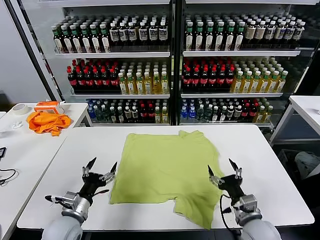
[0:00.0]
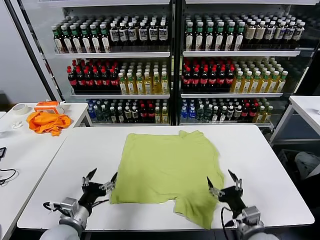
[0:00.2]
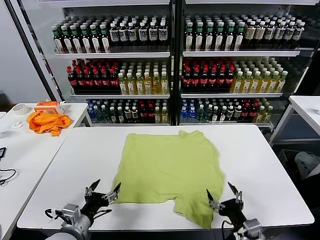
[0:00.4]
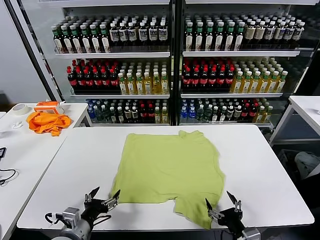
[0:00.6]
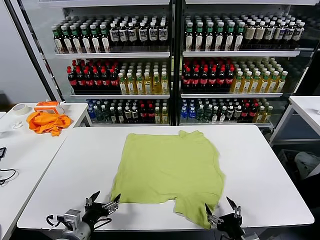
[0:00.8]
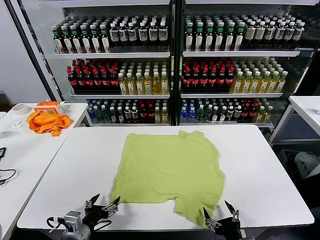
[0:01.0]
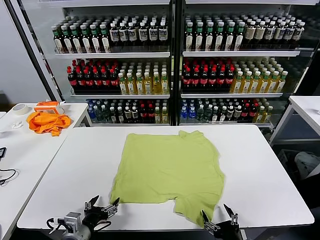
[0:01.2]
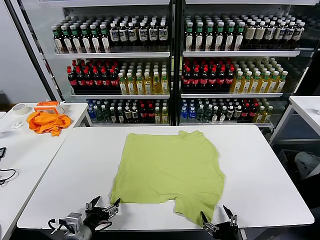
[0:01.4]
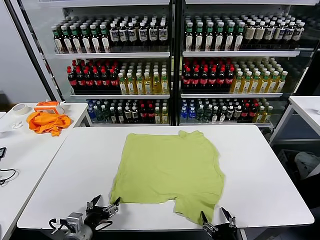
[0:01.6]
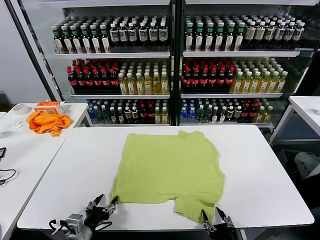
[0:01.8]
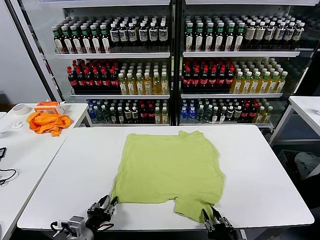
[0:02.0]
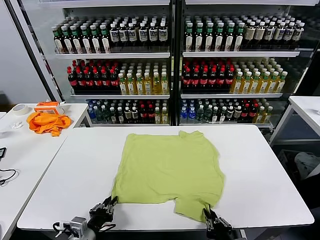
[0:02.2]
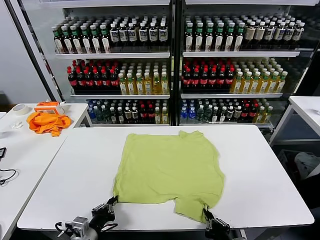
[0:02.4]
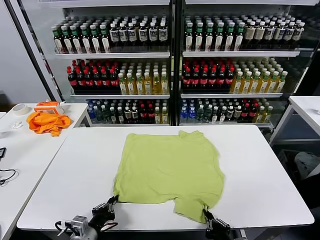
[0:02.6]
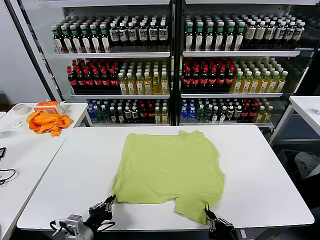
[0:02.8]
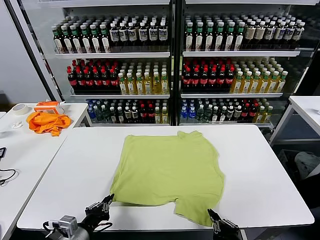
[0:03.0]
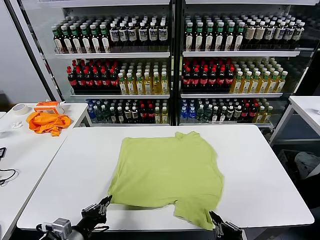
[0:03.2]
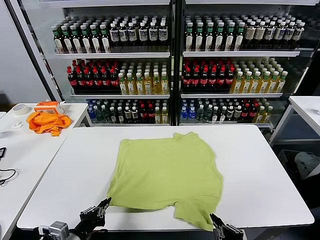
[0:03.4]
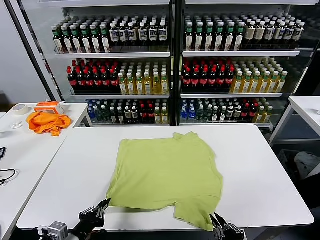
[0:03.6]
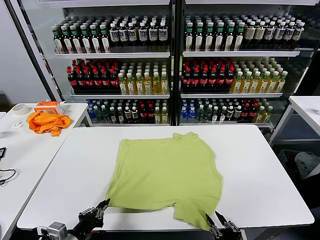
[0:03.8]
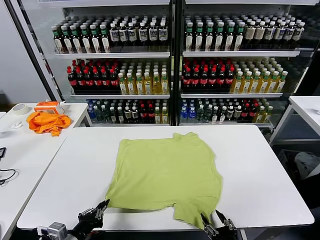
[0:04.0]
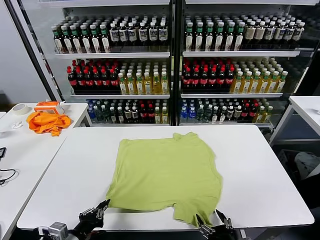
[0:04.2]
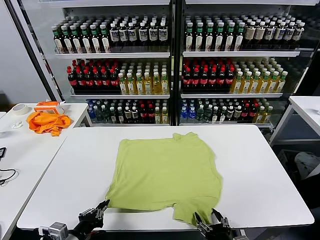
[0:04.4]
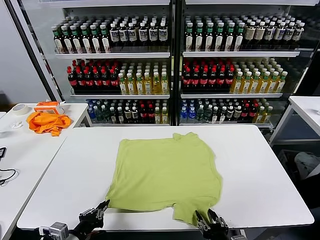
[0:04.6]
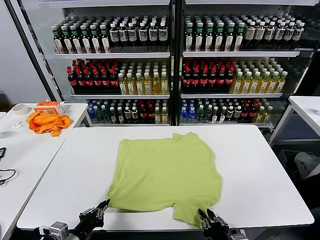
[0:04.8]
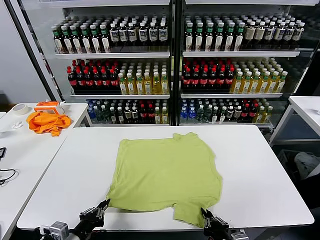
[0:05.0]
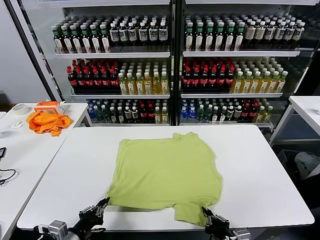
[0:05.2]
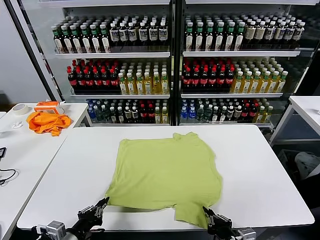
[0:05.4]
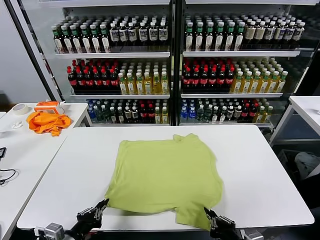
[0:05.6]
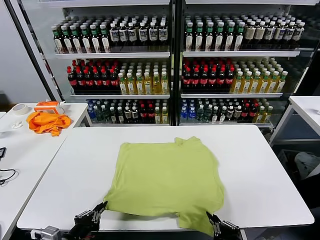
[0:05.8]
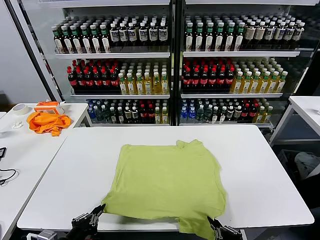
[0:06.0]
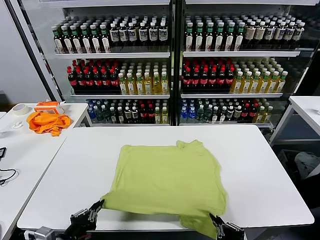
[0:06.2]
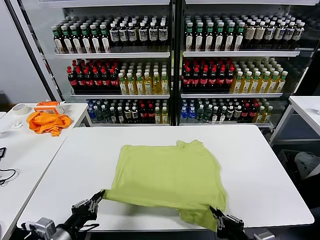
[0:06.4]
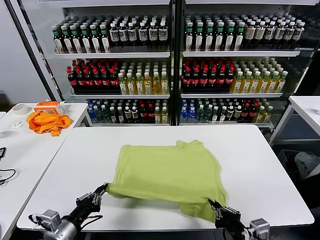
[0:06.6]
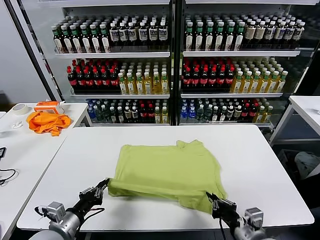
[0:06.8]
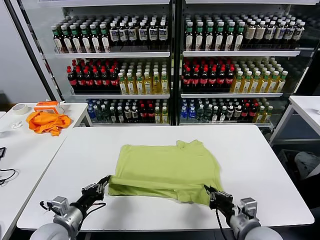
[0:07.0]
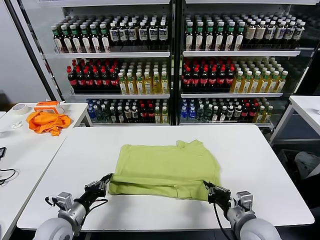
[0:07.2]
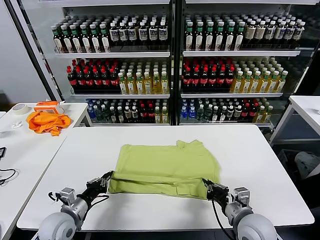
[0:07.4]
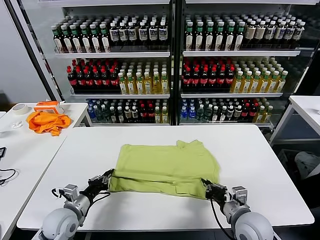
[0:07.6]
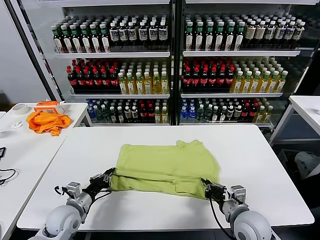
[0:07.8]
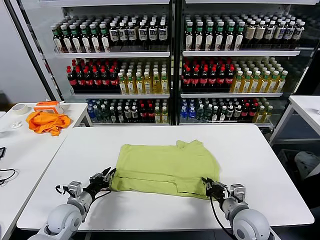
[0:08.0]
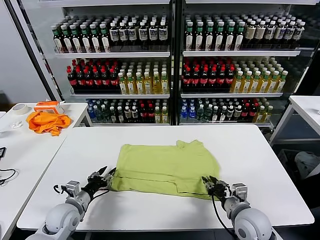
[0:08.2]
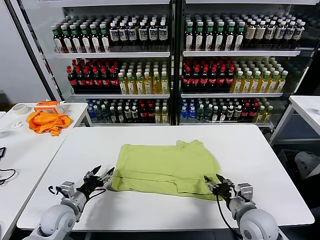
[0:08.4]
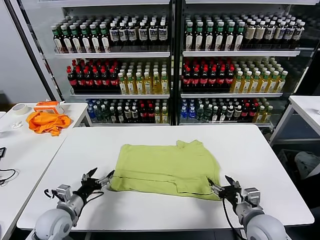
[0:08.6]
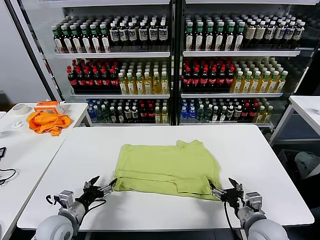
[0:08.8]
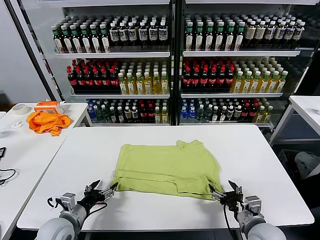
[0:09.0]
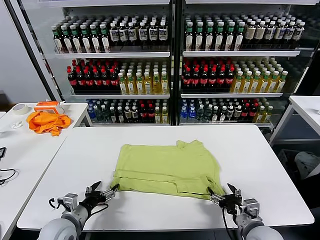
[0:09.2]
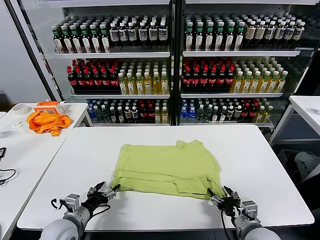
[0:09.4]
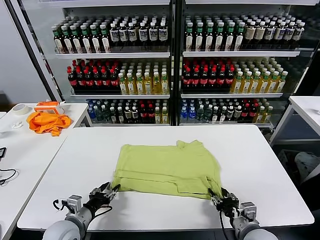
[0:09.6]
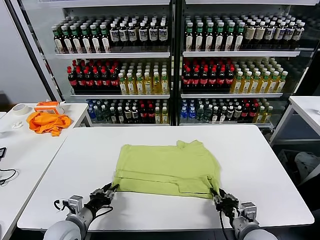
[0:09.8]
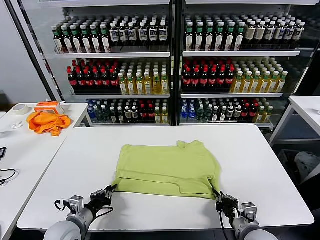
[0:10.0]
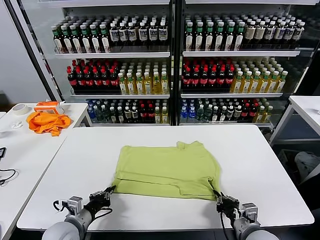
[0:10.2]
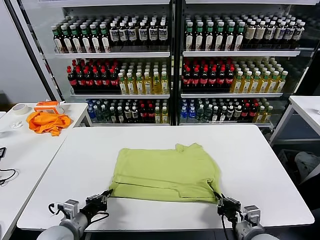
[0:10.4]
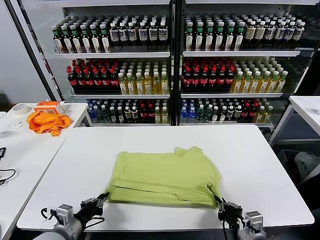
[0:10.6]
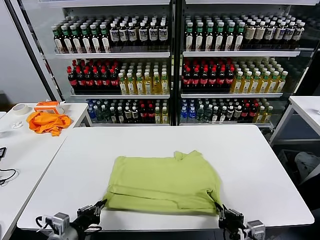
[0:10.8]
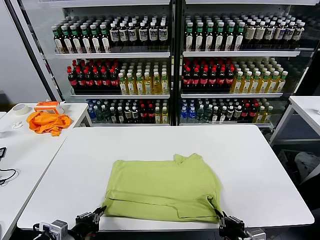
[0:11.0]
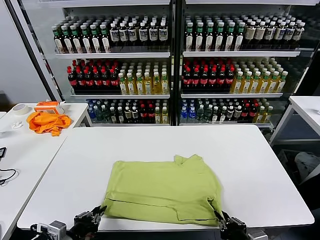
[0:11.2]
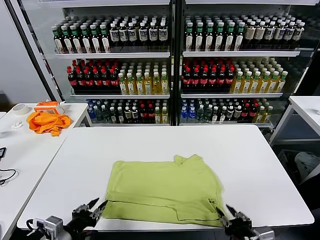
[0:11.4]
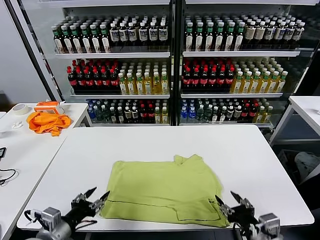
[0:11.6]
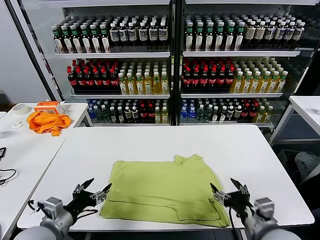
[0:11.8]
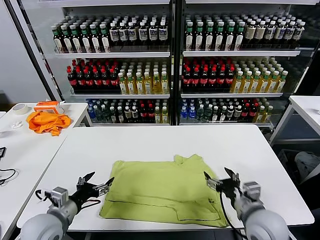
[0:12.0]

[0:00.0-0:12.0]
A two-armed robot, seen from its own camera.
Task of the whole recording: fold and organize the clothes.
Step, 0:00.0 to 0:02.2: use both grippers simultaneously to clamp the lower edge of the clothing fabric.
Step, 0:02.4 to 0:08.4: use both grippers to drag the lower edge of the fabric forward and fold it over the upper edge.
Step, 0:08.6 to 0:11.4: Drag the clothes downward with both gripper.
0:01.6 to 0:03.0: The left gripper closes. Meanwhile the right gripper is displaced upward by about 5 cm, and closes up.
0:03.0 to 0:04.4: The right gripper moves roughly 5 cm, and opens its fingers.
0:04.4 to 0:06.0: The right gripper travels upward by some 10 cm, and closes up.
0:06.0 to 0:07.6: The left gripper travels forward and downward by approximately 20 cm. Meanwhile the right gripper moves forward, approximately 15 cm.
0:07.6 to 0:09.0: The left gripper opens its fingers; the right gripper opens its fingers.
0:09.0 to 0:10.4: The right gripper closes its fingers. The left gripper closes.
0:10.4 to 0:12.0: The right gripper goes approximately 10 cm forward and upward, and opens up. The left gripper goes backward and returns, some 5 cm each way, and opens its fingers.

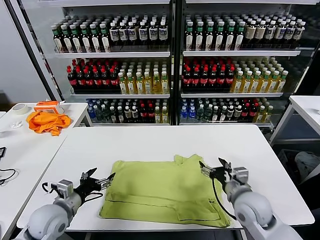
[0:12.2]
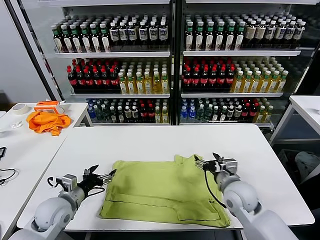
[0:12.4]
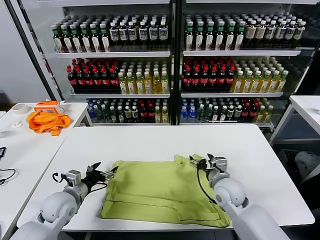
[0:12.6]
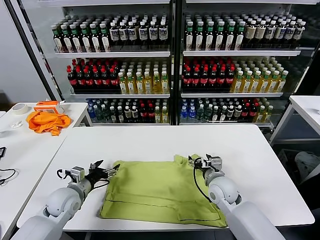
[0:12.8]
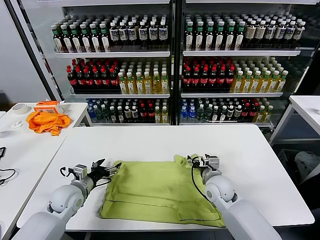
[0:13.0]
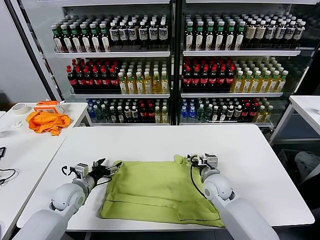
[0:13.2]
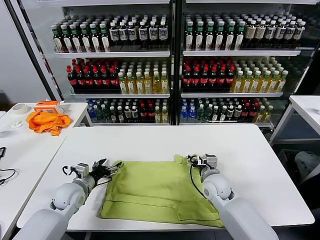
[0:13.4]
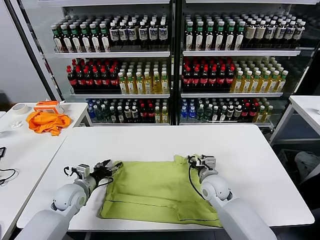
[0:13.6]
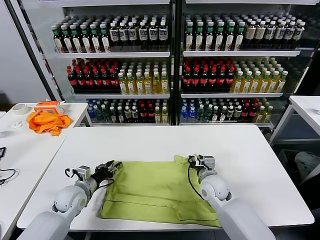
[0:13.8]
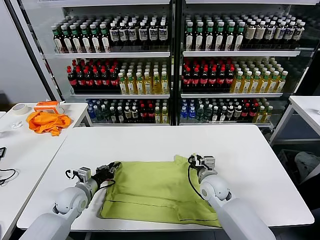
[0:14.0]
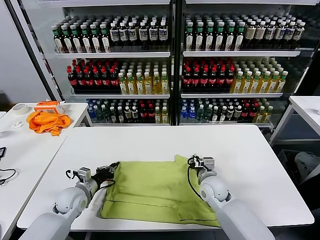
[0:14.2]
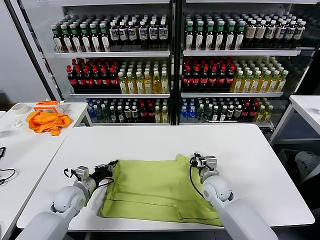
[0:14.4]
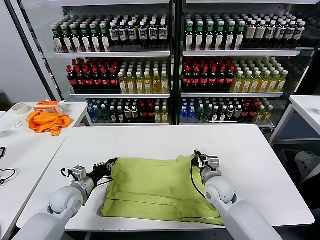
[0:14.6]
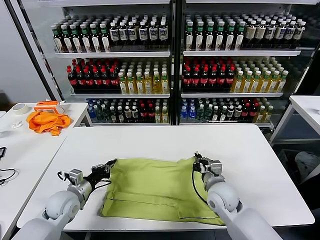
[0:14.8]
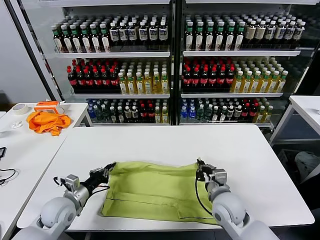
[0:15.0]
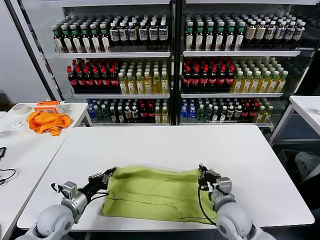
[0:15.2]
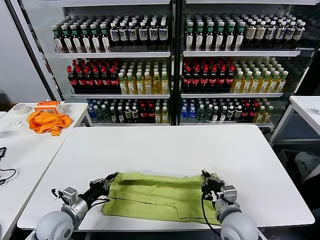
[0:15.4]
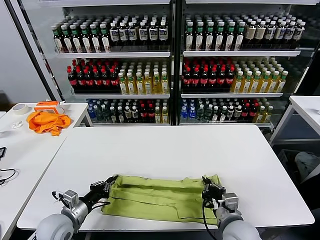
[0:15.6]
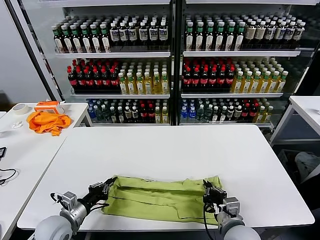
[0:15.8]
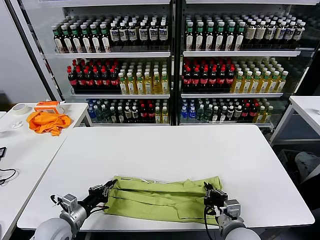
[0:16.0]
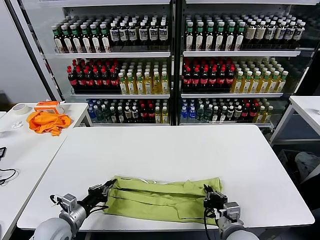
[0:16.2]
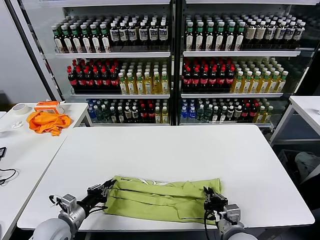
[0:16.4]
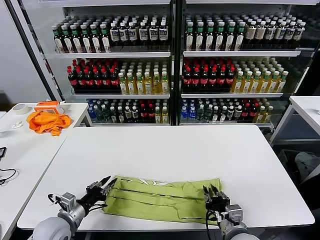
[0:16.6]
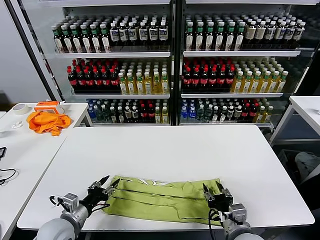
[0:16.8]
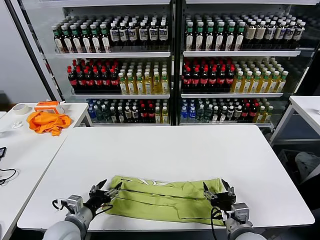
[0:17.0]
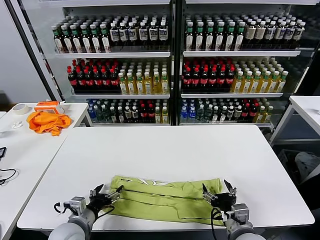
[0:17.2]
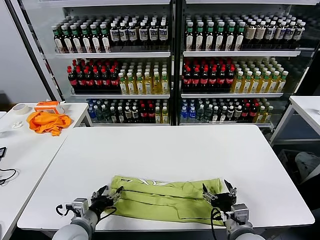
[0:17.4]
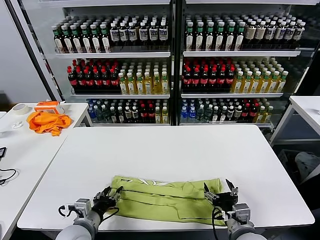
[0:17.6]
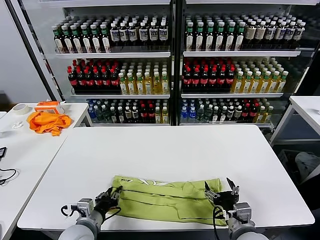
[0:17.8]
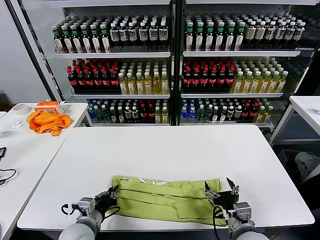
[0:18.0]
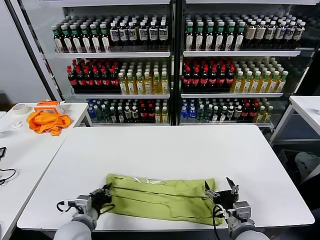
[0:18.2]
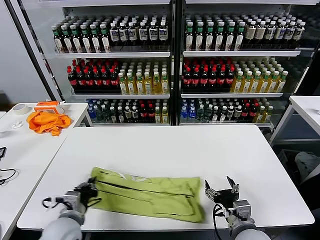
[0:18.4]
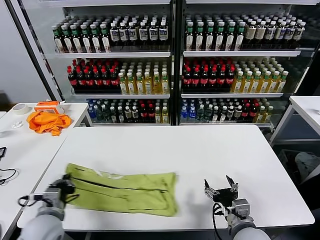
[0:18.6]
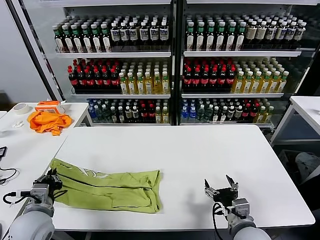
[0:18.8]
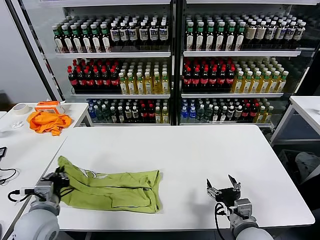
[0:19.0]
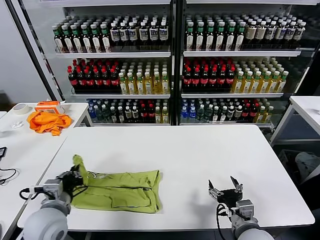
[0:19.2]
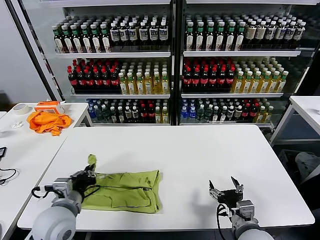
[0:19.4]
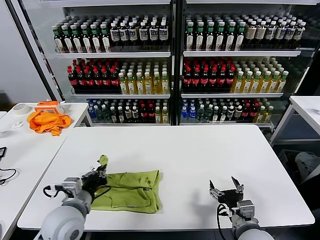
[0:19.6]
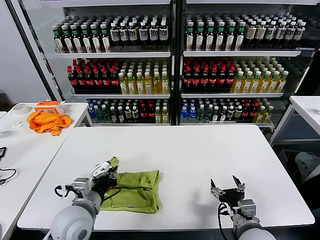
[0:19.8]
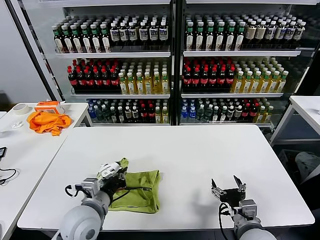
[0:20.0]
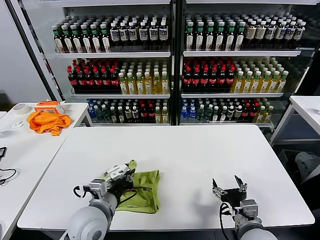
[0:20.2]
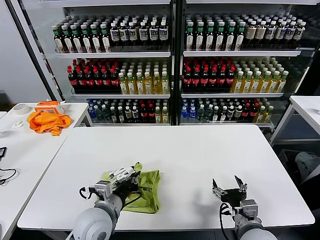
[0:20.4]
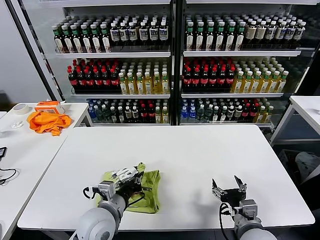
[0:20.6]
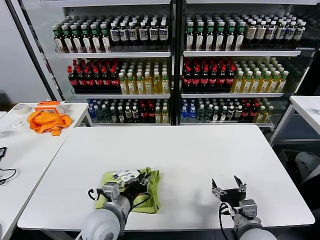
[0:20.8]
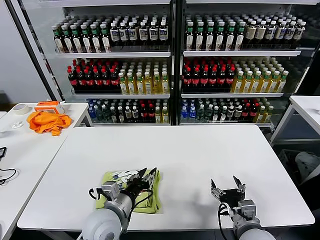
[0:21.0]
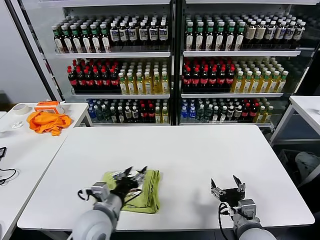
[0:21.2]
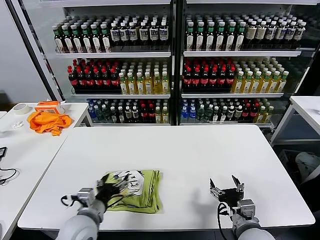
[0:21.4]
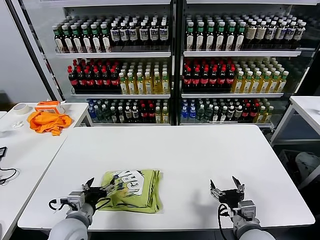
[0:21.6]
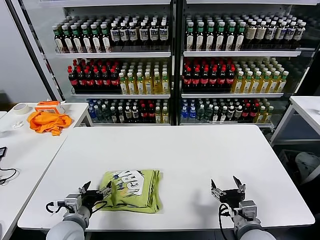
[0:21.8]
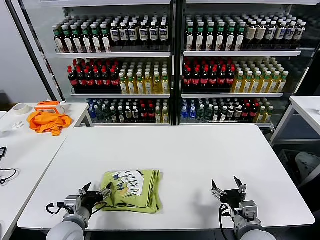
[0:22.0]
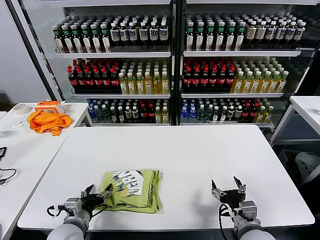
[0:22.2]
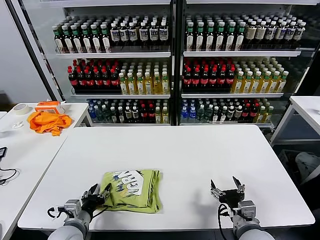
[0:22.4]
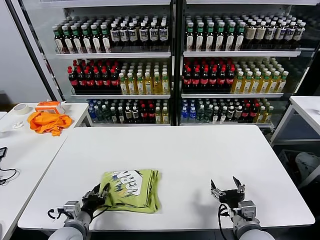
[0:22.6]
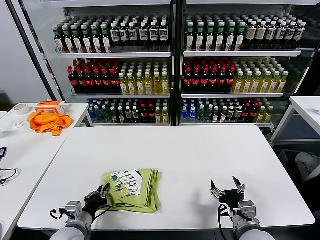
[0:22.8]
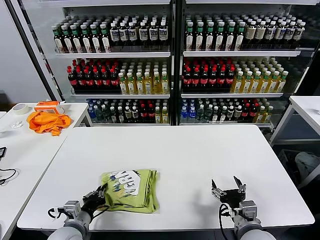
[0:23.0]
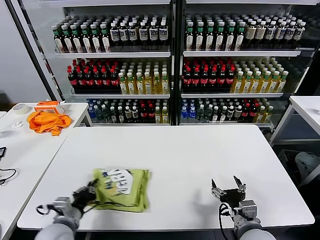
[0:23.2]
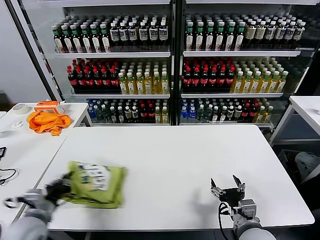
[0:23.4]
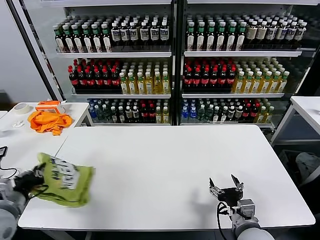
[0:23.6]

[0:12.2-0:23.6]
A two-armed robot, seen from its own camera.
Task of the whole recording: fold and organize the clothes.
Step, 0:12.2 to 0:14.0: use both grippers simultaneously to clamp the upper edge of the clothing fabric.
Step, 0:14.2 to 0:16.6: use both grippers to drag the upper edge of the fabric backward and fold it over the lower edge.
Step, 0:16.8 to 0:18.0: use the left gripper to clamp the left edge of the fabric.
Step, 0:18.2 to 0:21.0: use the left gripper to drag the left edge of the fabric to the left and folds it over the right edge.
0:12.2 to 0:13.6: The right gripper is displaced forward, downward and to the left by about 10 cm. Meanwhile the left gripper is displaced forward and downward by some 10 cm.
0:13.6 to 0:15.0: The left gripper heads backward, covering some 5 cm, and closes up. Meanwhile the right gripper heads backward, covering approximately 10 cm, and closes.
0:15.0 to 0:16.4: The left gripper travels backward by about 5 cm. The right gripper moves backward, approximately 10 cm.
0:16.4 to 0:17.8: The left gripper is displaced to the right by about 10 cm, and opens, then closes once more. Meanwhile the right gripper opens its fingers.
0:17.8 to 0:19.4: The left gripper goes roughly 10 cm upward, travels to the left and back again, roughly 10 cm each way, and closes its fingers.
0:19.4 to 0:20.8: The left gripper moves to the right, about 10 cm.
0:20.8 to 0:22.2: The left gripper is displaced to the left and downward by some 15 cm, and opens up.
0:22.2 to 0:23.6: The left gripper travels to the left and upward by roughly 15 cm, and closes its fingers.
